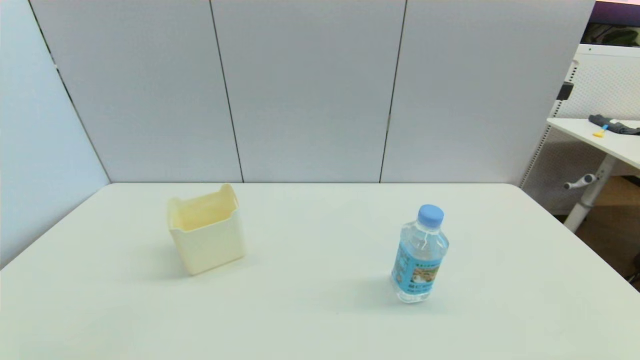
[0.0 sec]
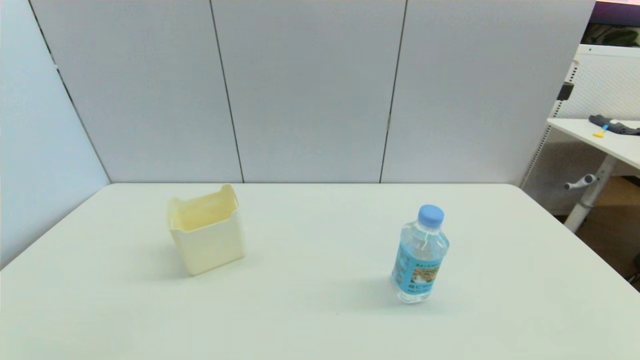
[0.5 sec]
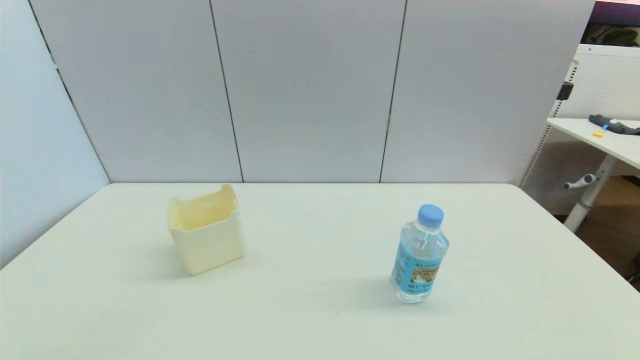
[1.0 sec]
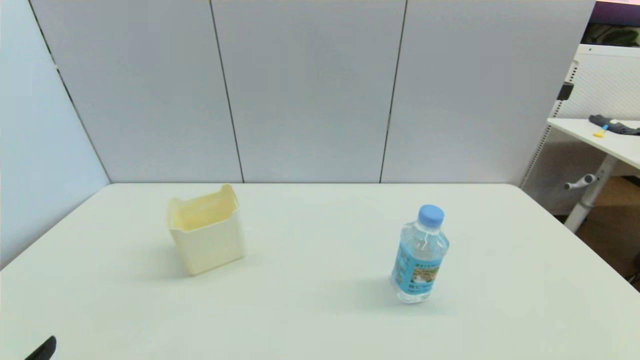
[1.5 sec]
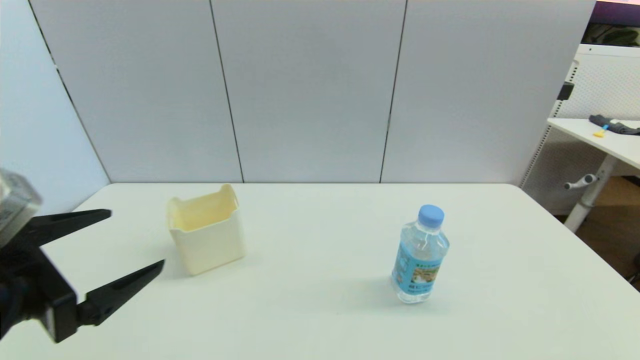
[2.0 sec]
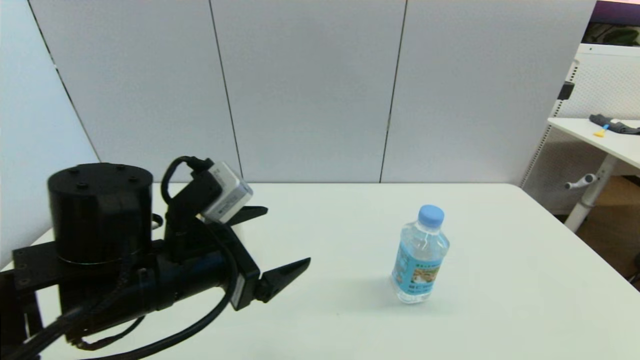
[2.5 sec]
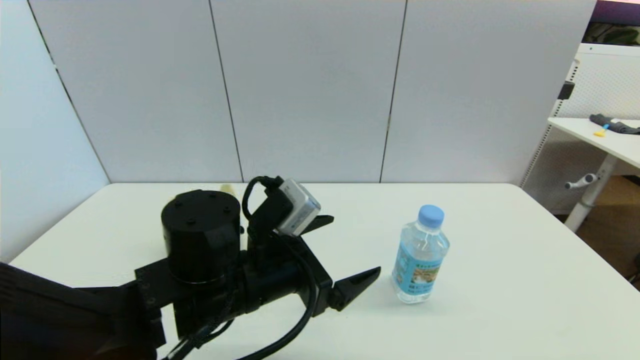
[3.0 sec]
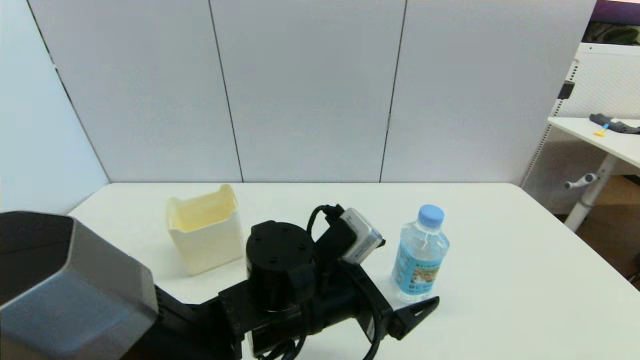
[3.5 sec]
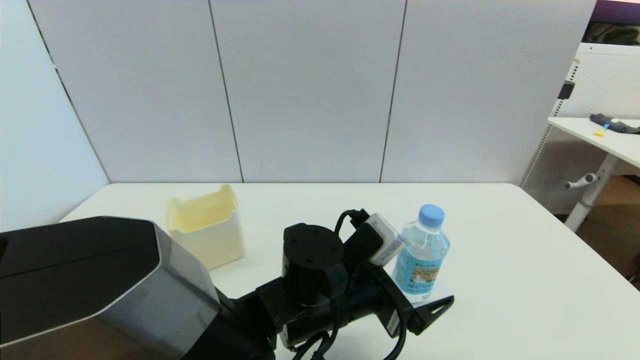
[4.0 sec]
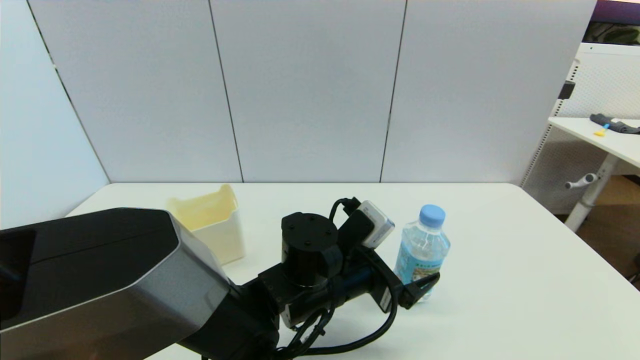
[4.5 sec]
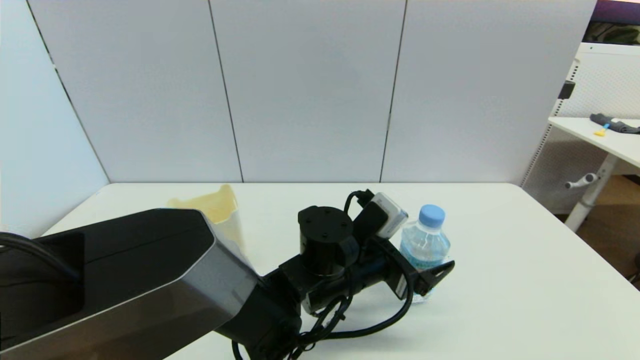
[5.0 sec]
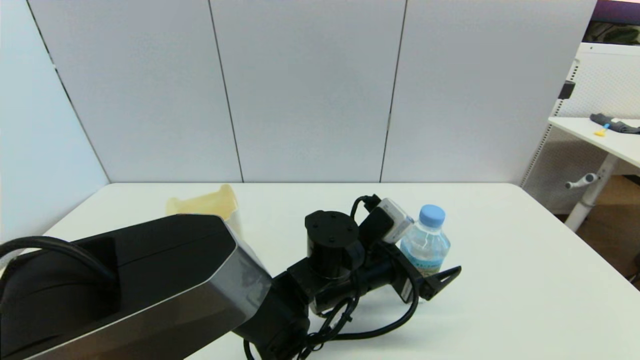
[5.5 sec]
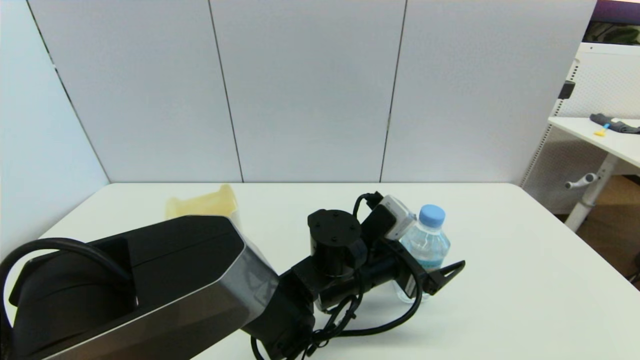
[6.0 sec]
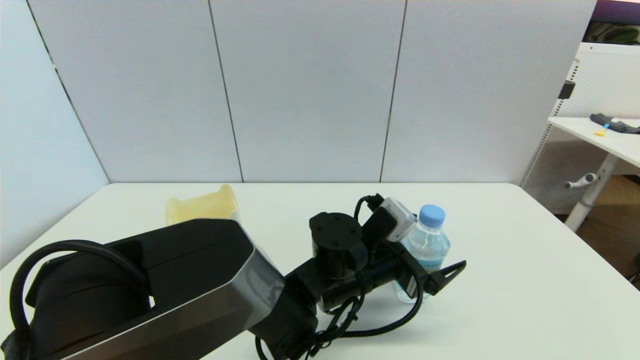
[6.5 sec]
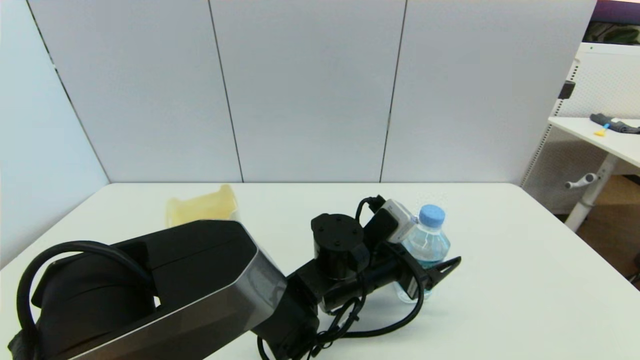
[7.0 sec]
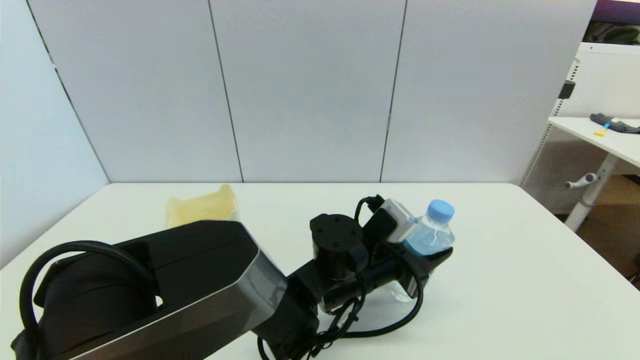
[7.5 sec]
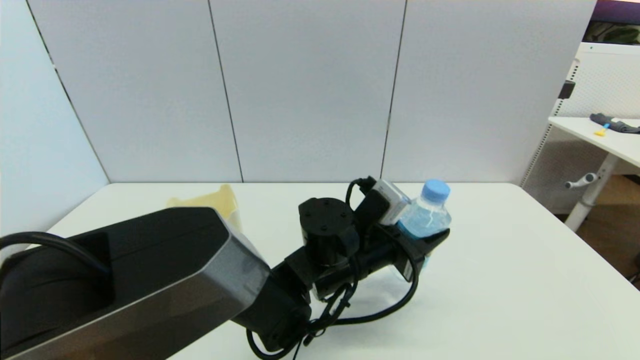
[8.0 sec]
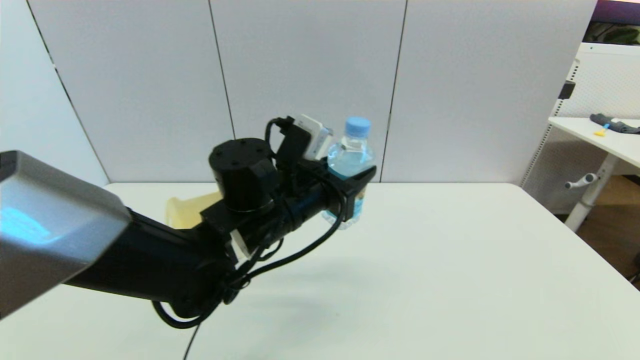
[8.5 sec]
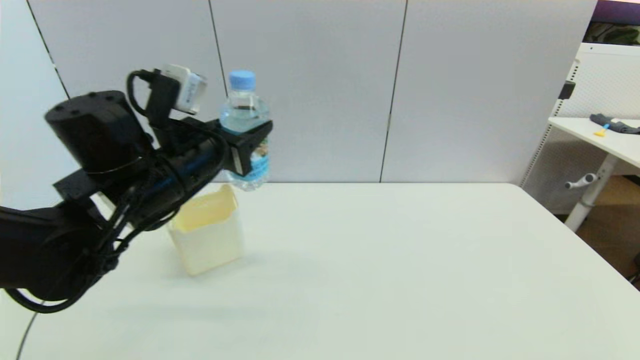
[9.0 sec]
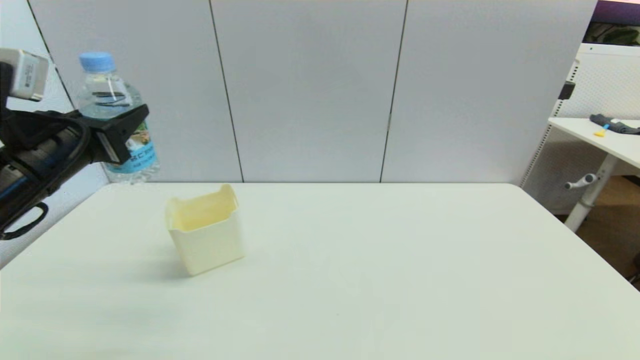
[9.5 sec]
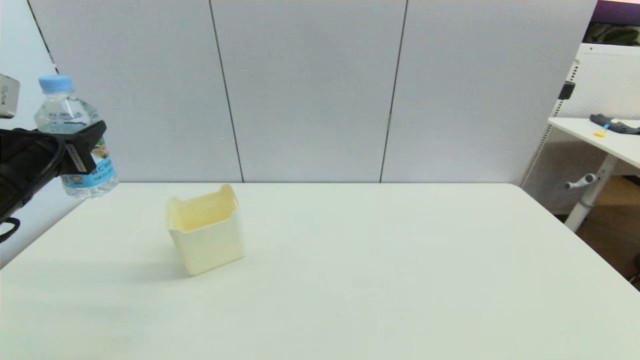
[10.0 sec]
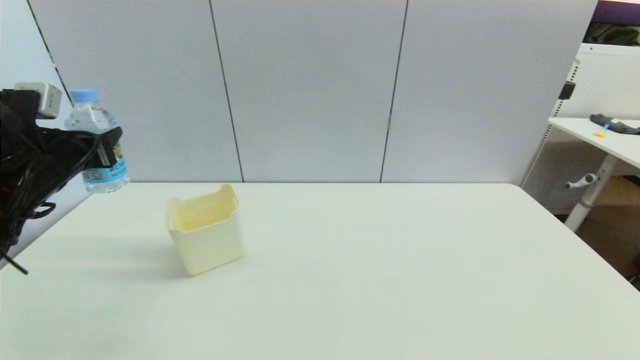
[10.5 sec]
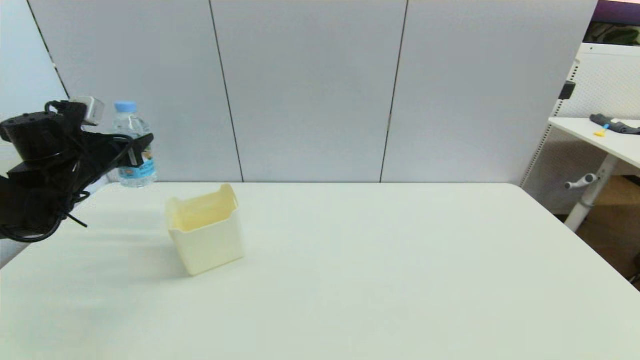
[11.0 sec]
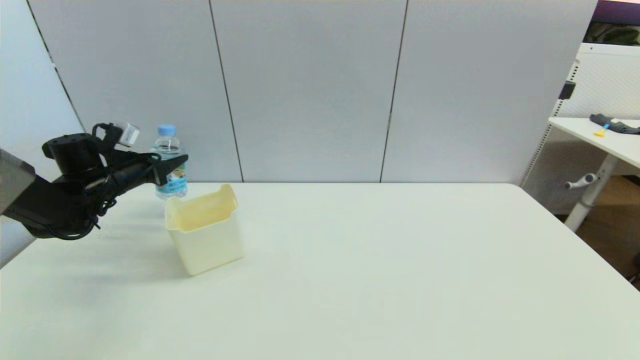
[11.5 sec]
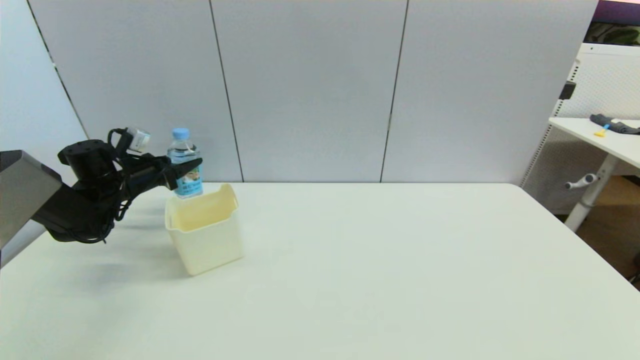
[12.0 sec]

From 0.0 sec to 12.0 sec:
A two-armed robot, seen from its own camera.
Step, from 1.5 sec to 7.5 sec: Grasp the soda water with left gripper.
From 0.0 sec to 2.0 sec: The left gripper goes approximately 20 cm upward and forward.
From 2.0 sec to 4.0 sec: The left gripper goes roughly 30 cm to the right and downward.
From 4.0 sec to 6.0 sec: The left gripper changes place by approximately 5 cm.
From 6.0 sec to 8.0 sec: The left gripper closes.
From 8.0 sec to 10.0 sec: The left gripper travels to the left by about 35 cm.
From 10.0 sec to 12.0 sec: The left gripper goes approximately 25 cm forward and downward.

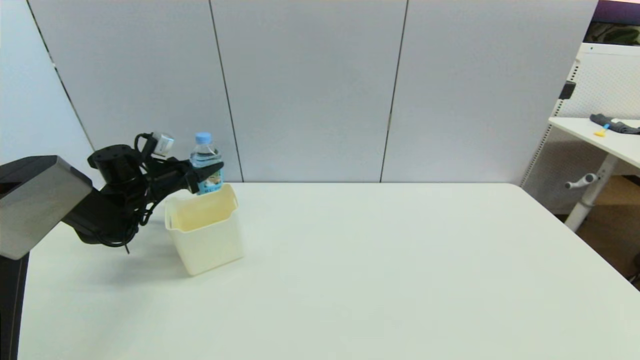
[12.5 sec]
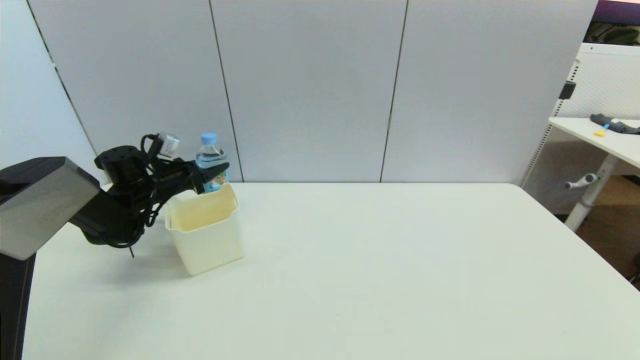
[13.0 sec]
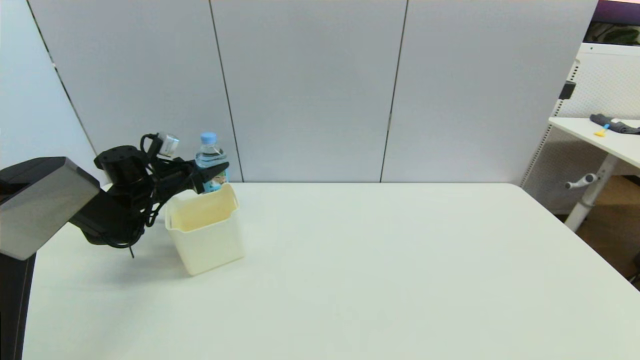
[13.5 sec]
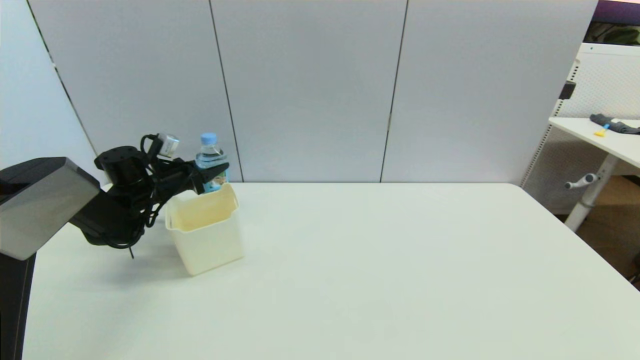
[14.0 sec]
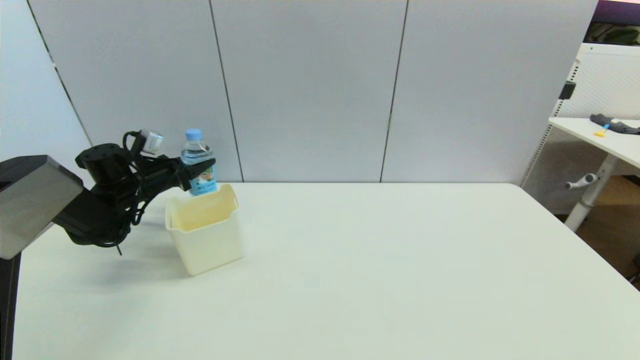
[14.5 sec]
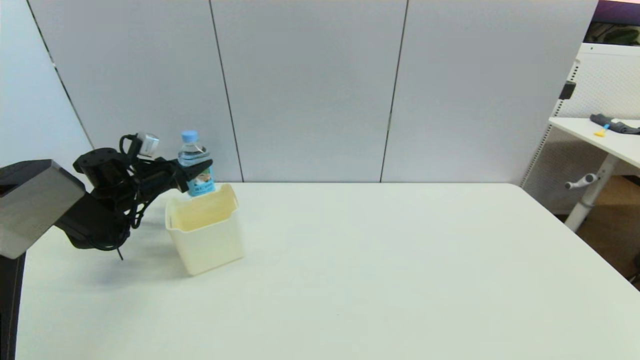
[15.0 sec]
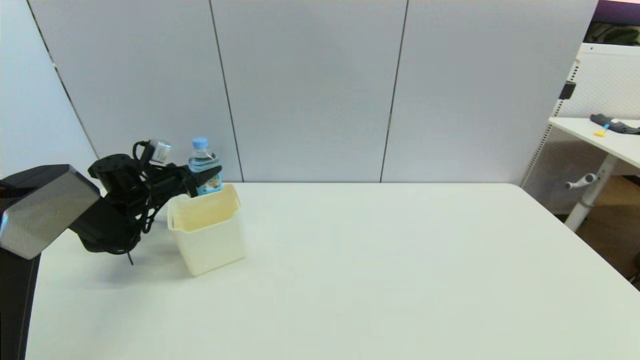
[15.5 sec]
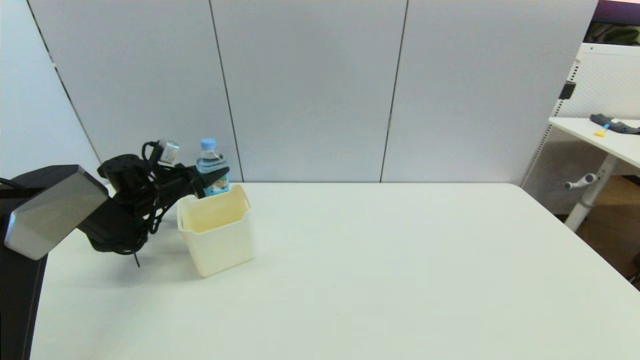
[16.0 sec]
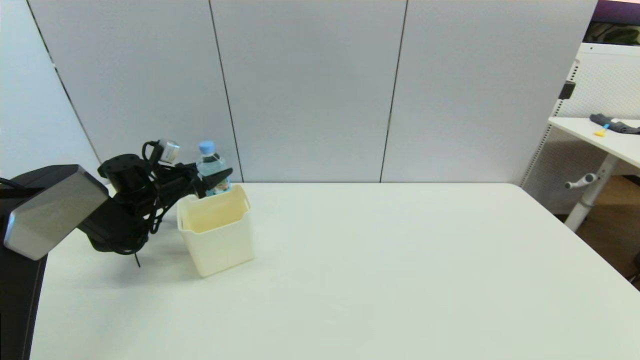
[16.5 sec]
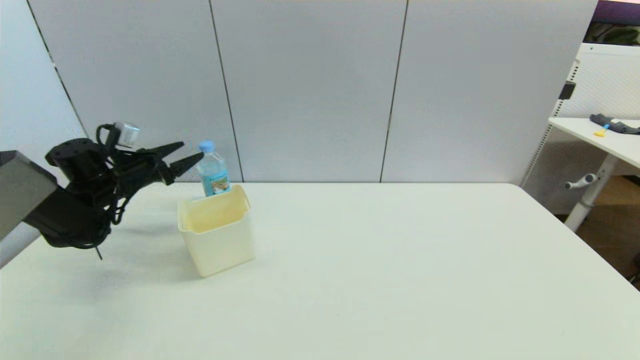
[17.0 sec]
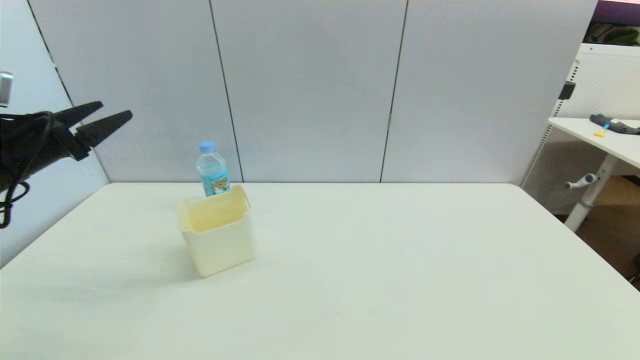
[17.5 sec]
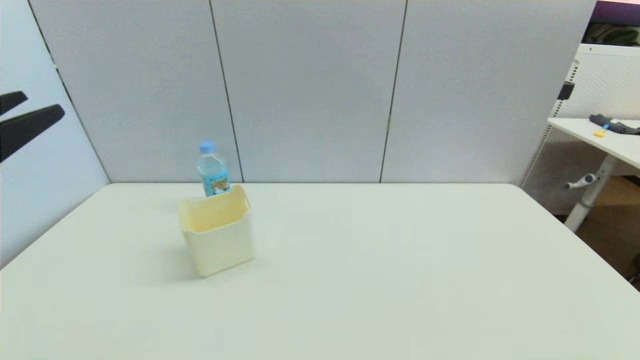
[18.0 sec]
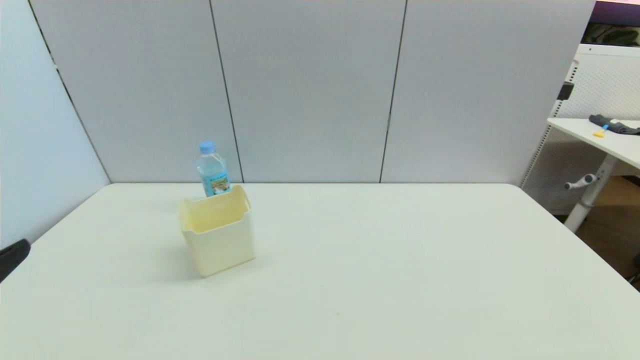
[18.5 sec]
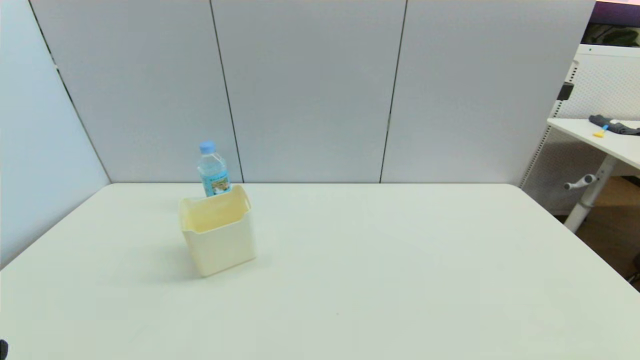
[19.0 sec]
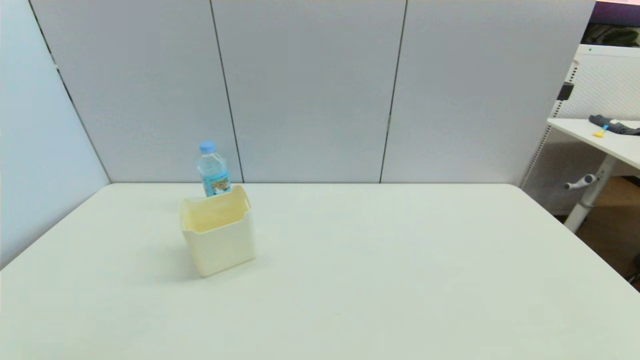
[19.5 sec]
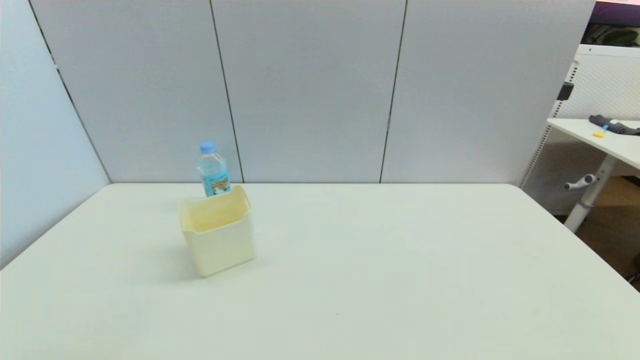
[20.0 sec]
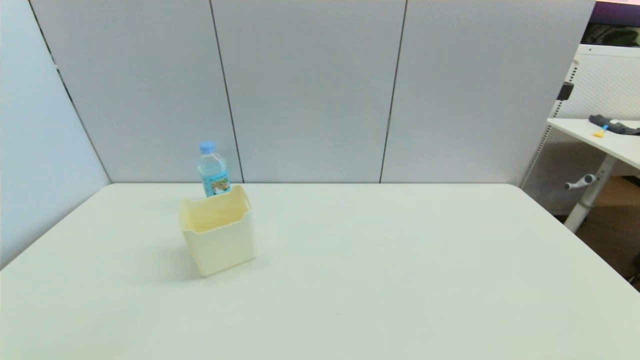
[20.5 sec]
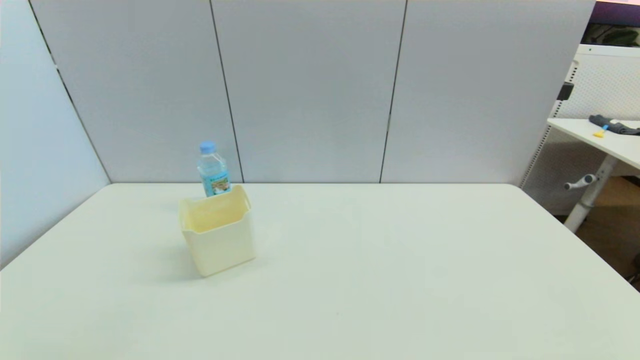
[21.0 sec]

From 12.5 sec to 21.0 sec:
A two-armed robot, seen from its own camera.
Step, from 12.5 sec to 16.5 sec: Place the soda water on the table with left gripper.
From 12.5 sec to 14.5 sec: There are only small adjustments of the grippers.
From 14.5 sec to 16.5 sec: The left gripper opens.
From 16.5 sec to 19.0 sec: The left gripper heads backward, covering roughly 50 cm, and opens.
